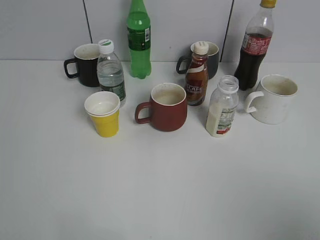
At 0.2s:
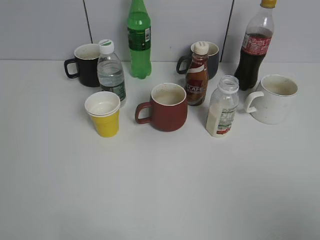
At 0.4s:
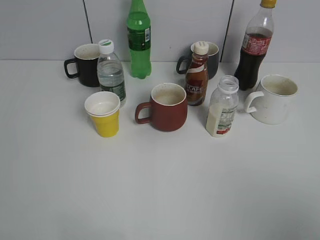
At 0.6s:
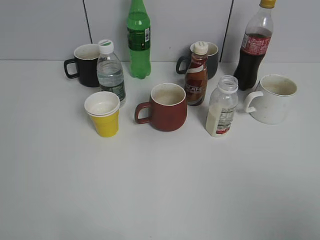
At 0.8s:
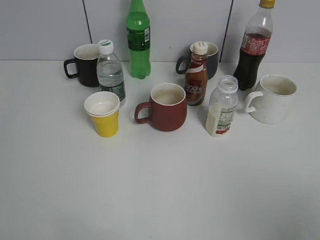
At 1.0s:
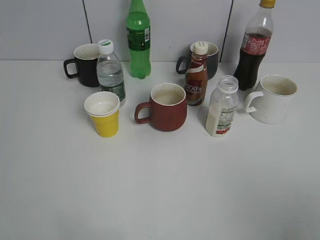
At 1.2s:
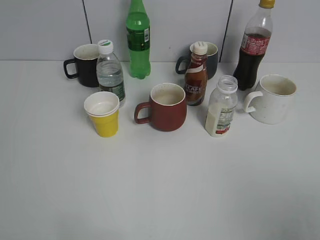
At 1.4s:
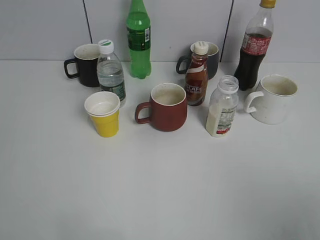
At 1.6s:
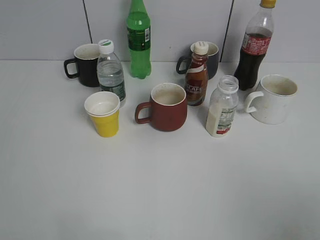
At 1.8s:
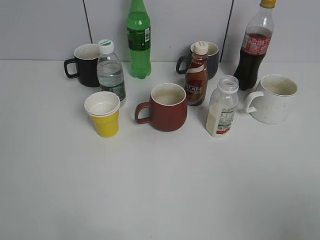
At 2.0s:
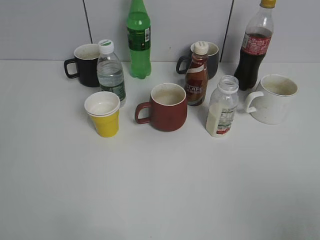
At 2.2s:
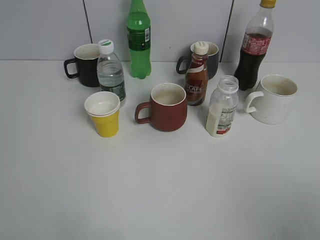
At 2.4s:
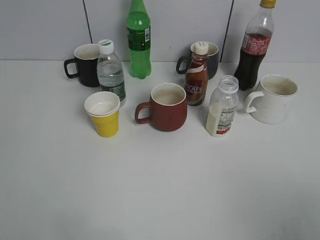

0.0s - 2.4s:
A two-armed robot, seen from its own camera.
1.2s - 2.4s: The two grippers keep their place.

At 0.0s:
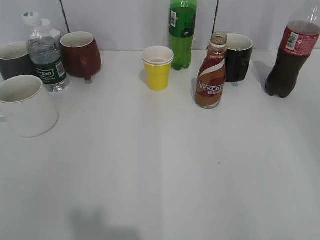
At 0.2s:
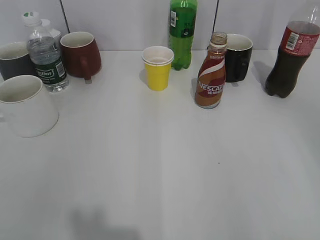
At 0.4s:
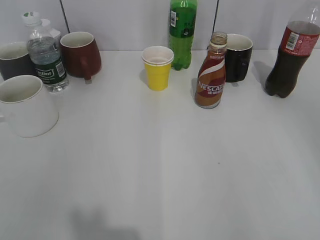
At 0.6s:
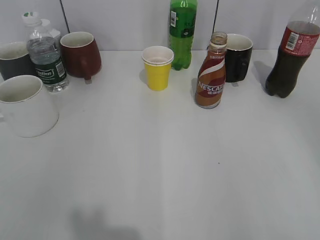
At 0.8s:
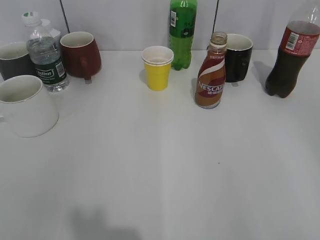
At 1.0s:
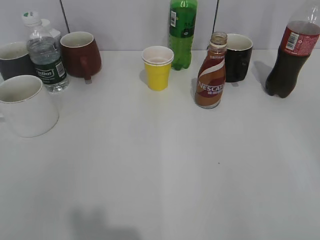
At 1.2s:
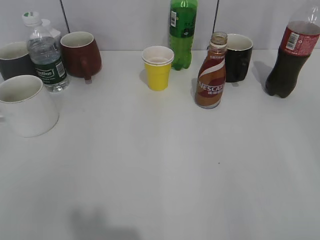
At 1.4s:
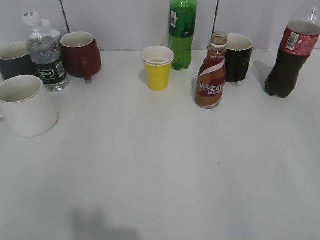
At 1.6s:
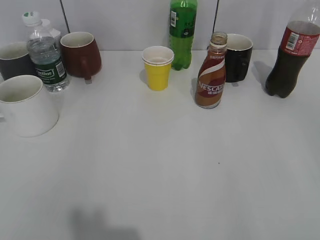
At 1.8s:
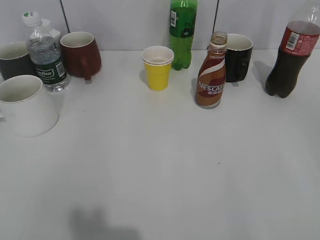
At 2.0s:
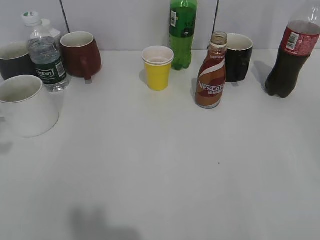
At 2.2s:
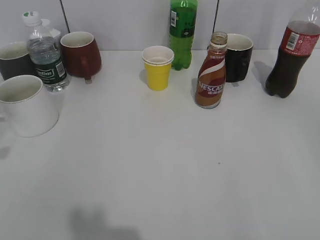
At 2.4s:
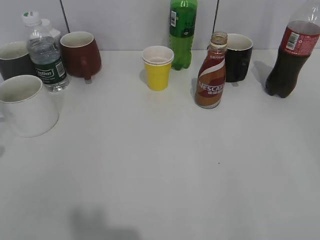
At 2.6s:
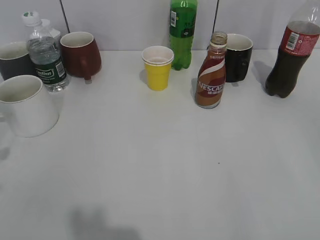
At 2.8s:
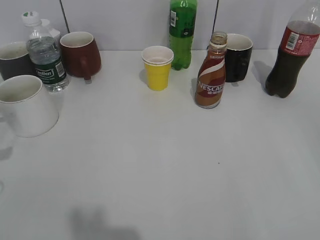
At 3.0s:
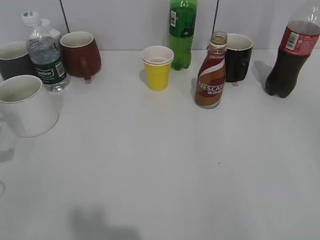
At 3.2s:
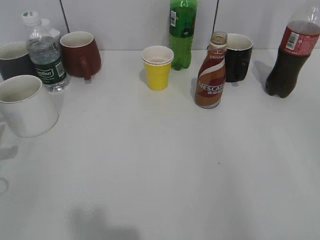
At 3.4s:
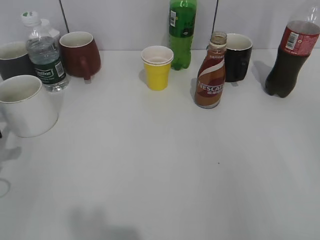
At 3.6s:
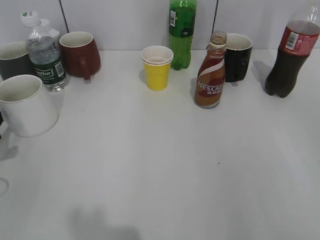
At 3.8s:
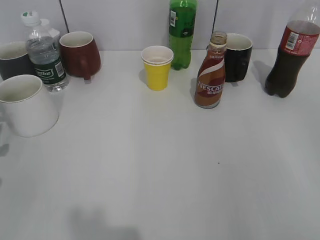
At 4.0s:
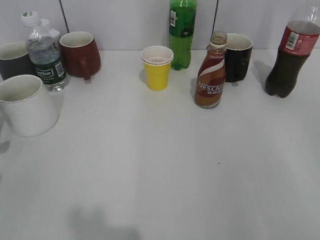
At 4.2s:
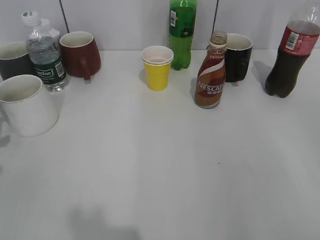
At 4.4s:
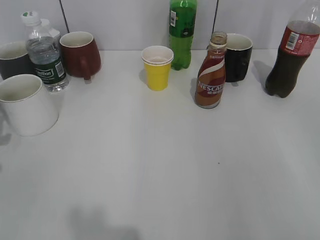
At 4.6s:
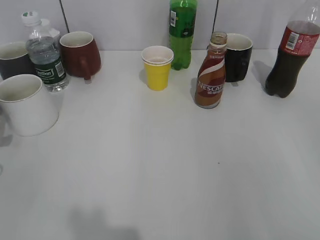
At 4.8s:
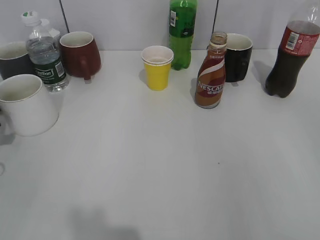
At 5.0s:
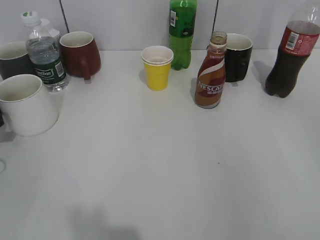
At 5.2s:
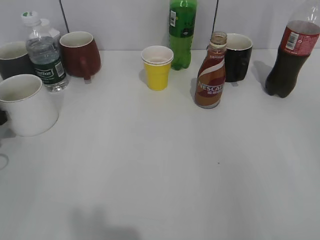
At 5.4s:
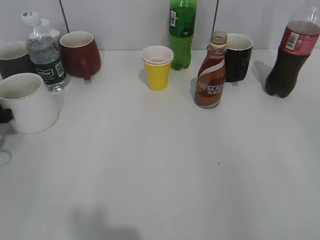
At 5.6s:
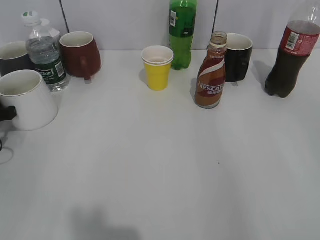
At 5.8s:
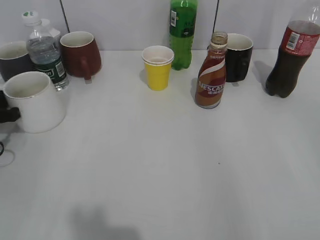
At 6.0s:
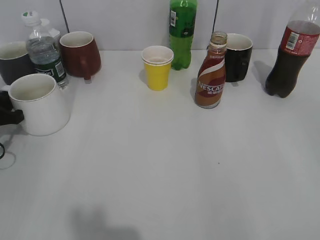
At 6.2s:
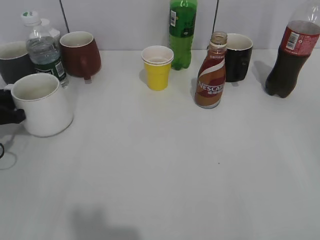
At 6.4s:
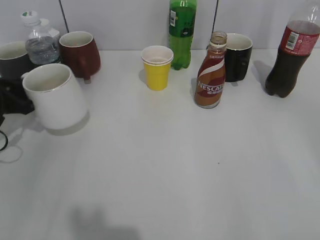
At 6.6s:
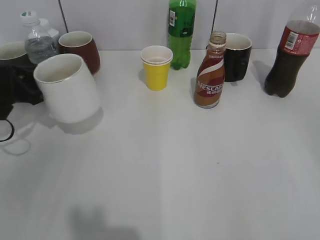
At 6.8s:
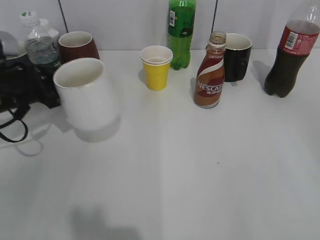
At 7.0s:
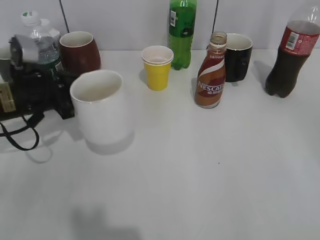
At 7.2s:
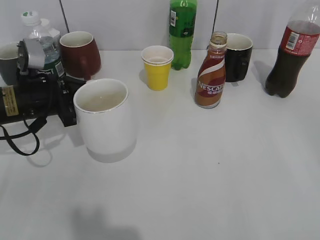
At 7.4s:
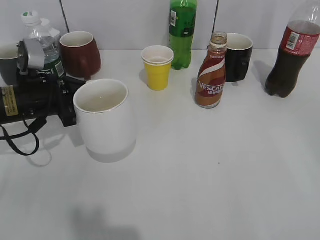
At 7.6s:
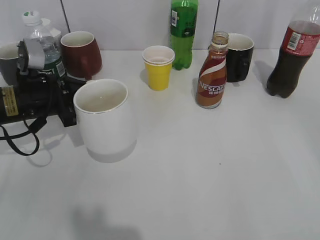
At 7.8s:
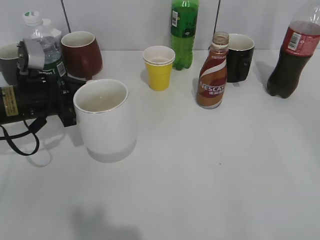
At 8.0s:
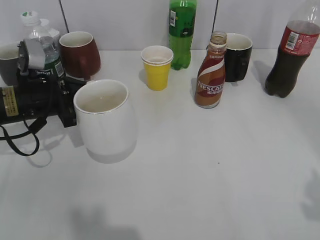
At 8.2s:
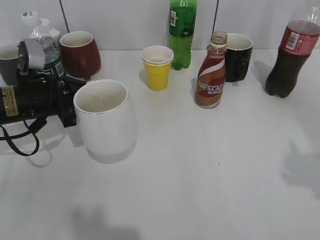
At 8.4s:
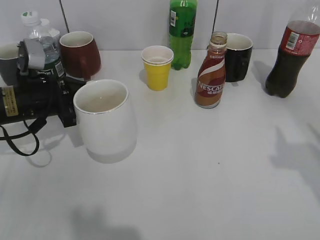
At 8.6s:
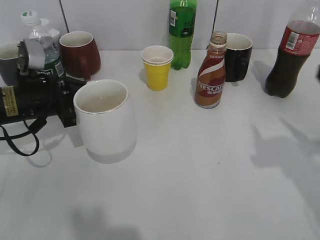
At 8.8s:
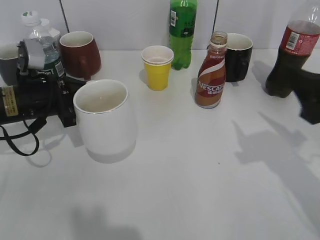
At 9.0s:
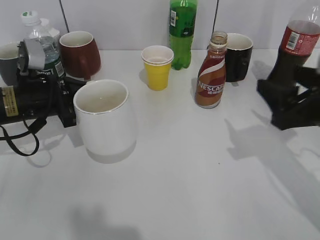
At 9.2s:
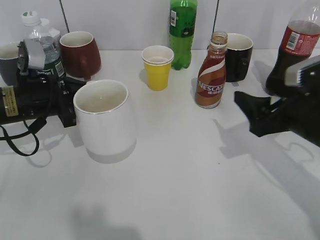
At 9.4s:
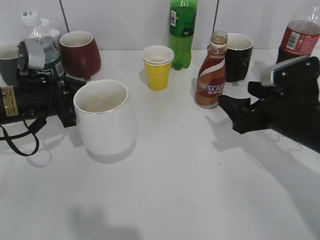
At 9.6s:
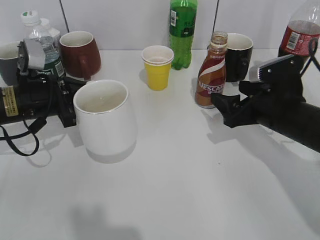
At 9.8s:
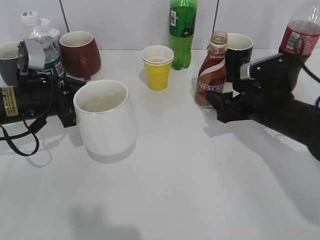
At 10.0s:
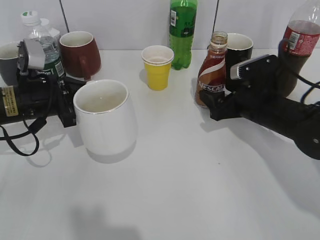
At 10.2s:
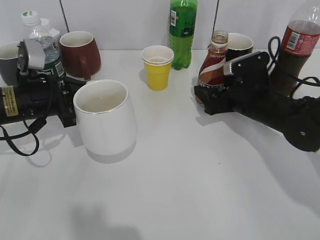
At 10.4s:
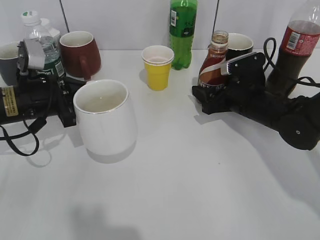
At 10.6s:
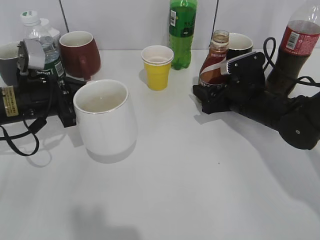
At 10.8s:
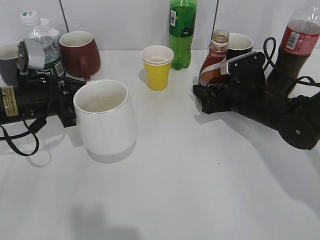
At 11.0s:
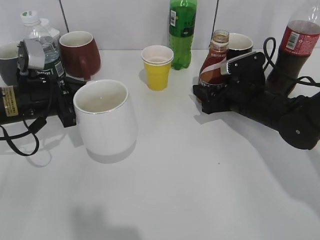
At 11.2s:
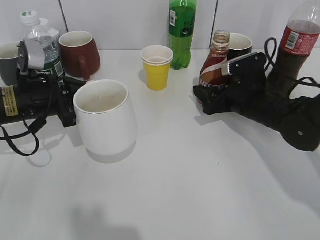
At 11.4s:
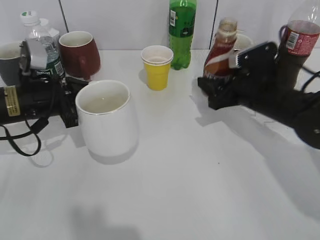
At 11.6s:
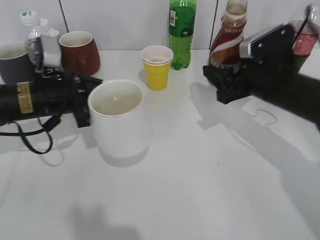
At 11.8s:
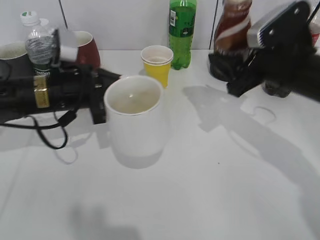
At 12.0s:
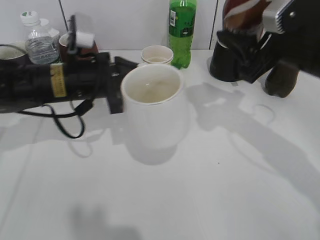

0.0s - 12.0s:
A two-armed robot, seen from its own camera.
Step, 4.0s - 6.0s: Grasp the white cup with left gripper.
Step, 6.2s - 7.2s: Lift the white cup with left gripper.
Step, 7.4s - 11.2s: Grasp the bottle with coffee with right gripper.
1.6s - 3.0s: The left gripper heads downward and forward, covering some 20 cm.
4.4s - 6.0s: The left gripper is displaced forward by about 5 cm, and closes its fingers.
6.0s - 7.6s: The left gripper shifts some 10 cm to the right.
7.6s - 9.0s: The right gripper heads forward, covering approximately 20 cm.
9.0s - 10.4s: The right gripper is displaced forward, downward and to the left by roughly 20 cm.
10.4s - 12.0s: The right gripper shifts some 15 cm upward and backward. Meanwhile the left gripper moves to the right, roughly 10 cm.

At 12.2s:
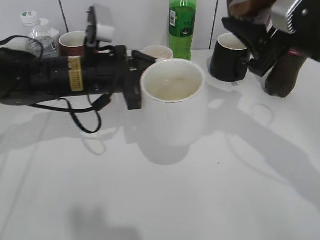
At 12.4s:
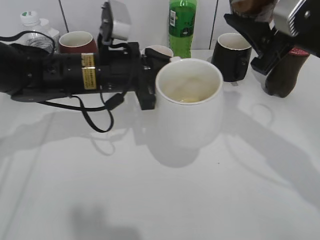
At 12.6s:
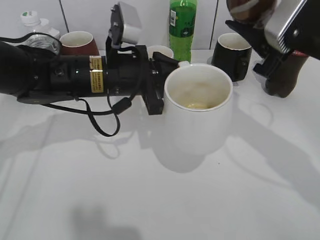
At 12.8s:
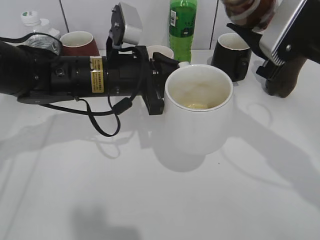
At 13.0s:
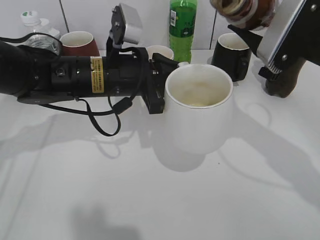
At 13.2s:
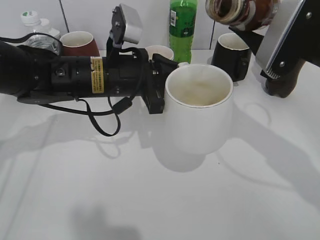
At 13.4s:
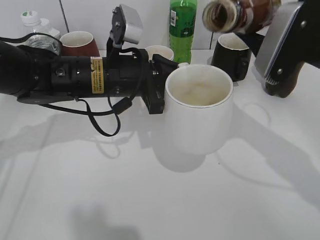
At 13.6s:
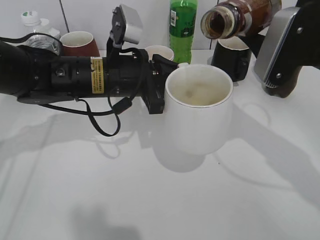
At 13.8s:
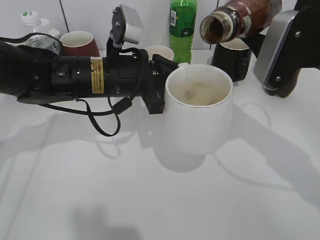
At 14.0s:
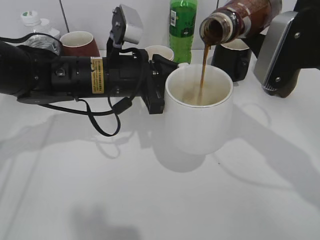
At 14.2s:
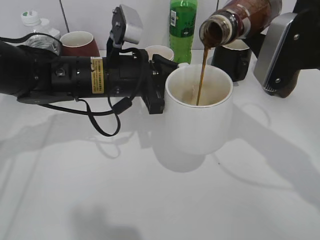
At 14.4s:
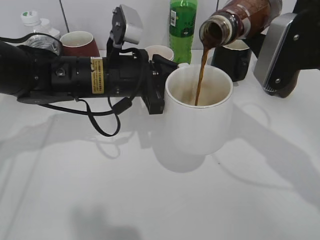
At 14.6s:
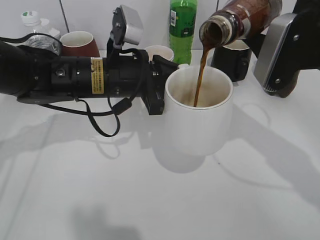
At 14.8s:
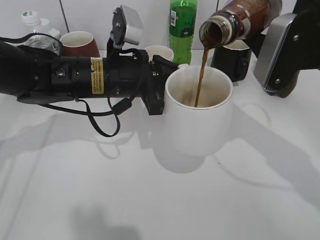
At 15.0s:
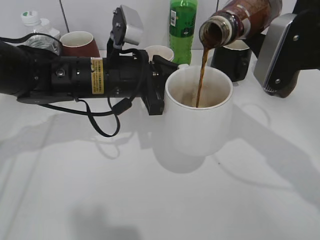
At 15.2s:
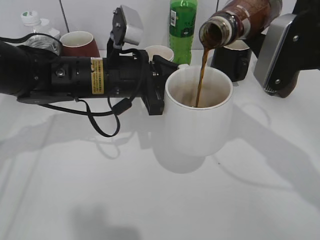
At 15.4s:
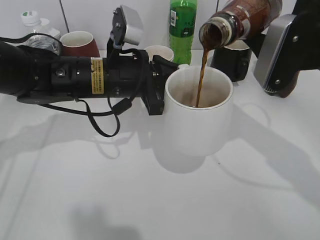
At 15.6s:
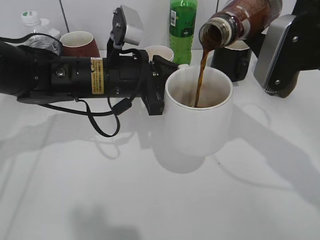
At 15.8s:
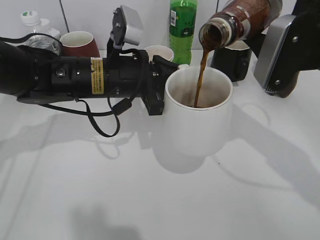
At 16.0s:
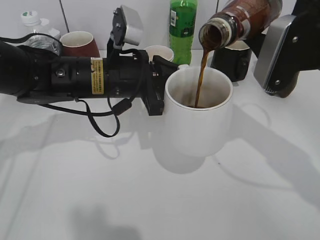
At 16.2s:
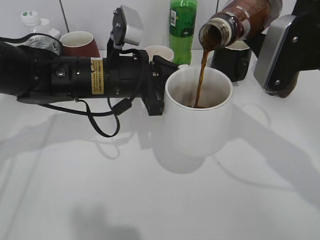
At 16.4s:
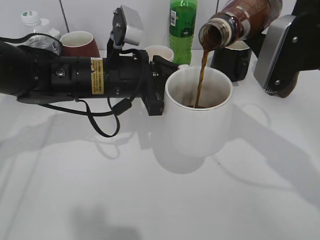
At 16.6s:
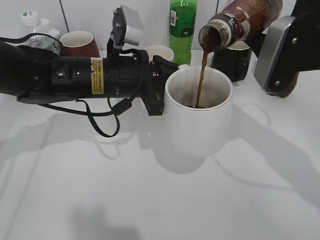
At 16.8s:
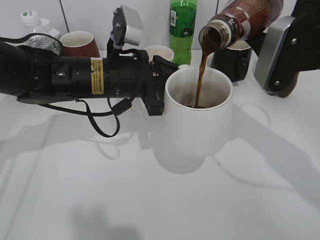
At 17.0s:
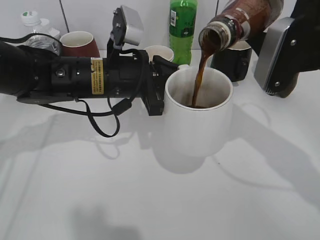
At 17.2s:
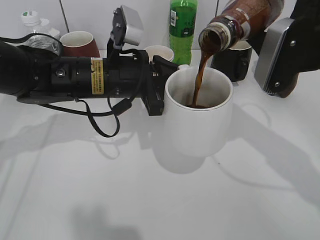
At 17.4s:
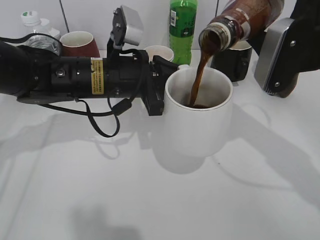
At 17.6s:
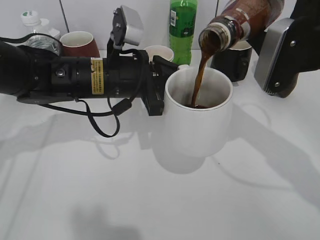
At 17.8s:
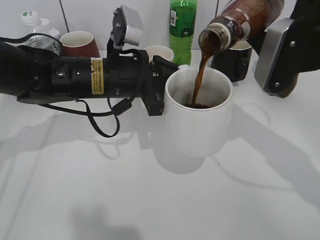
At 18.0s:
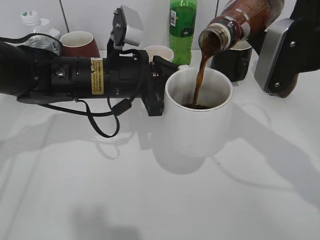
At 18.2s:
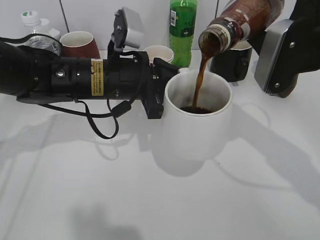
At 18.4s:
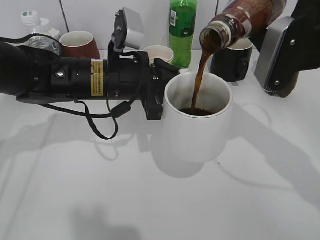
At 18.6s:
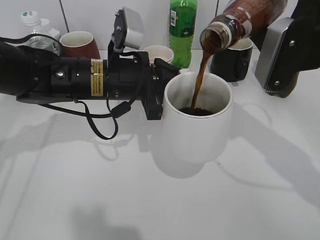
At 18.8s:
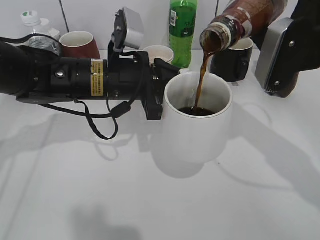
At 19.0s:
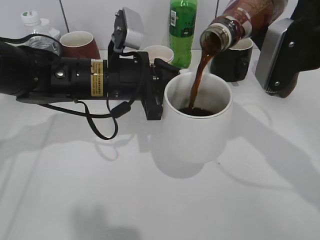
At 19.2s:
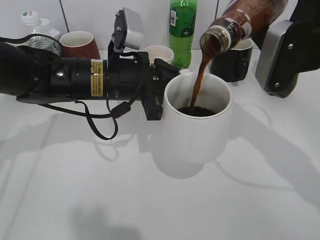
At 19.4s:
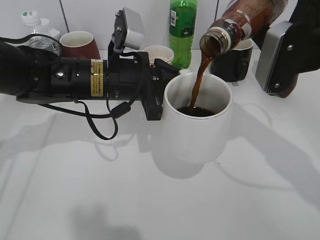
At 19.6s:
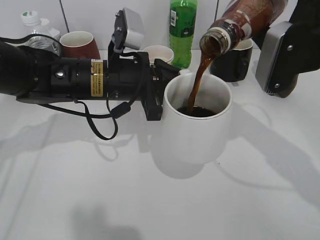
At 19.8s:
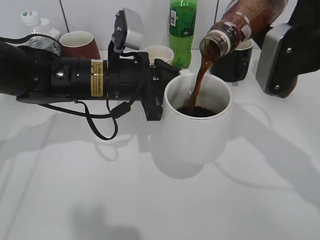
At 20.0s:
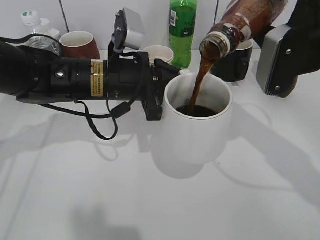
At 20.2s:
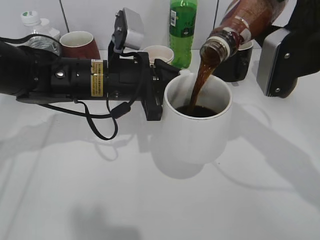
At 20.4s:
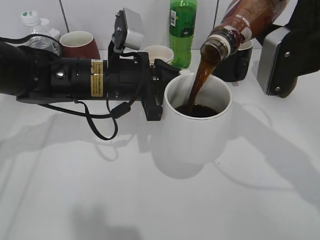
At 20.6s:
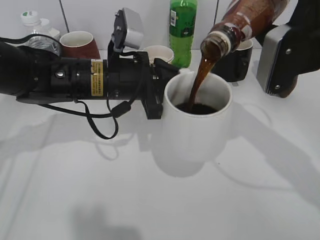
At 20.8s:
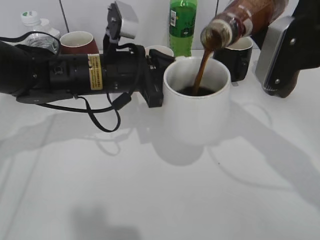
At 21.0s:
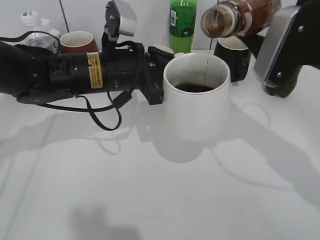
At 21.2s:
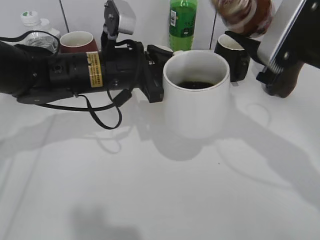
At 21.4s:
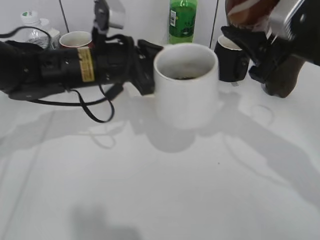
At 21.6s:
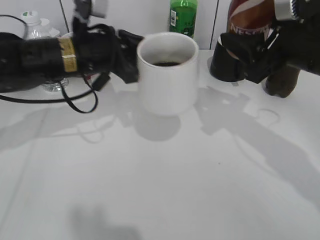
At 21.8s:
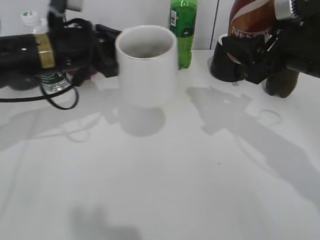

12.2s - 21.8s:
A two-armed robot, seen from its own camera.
Step, 12.2s - 21.0s: Pour the coffee from bottle to cup with right gripper.
13.8s - 15.4s: Both grippers stay put.
15.4s - 17.0s: Neither gripper changes place.
17.0s - 18.6s: Both grippers stay put.
18.6s - 20.2s: The grippers move only a little.
20.2s - 21.8s: The left gripper heads to the left, covering roughly 10 cm.
